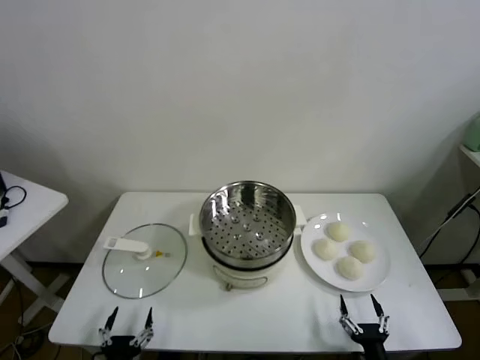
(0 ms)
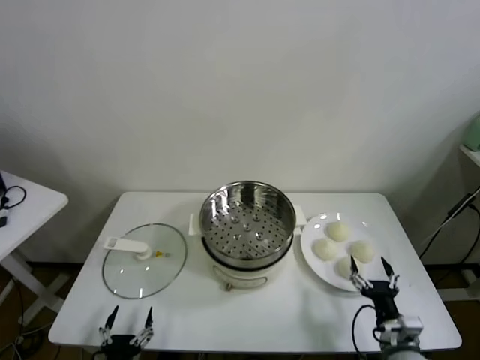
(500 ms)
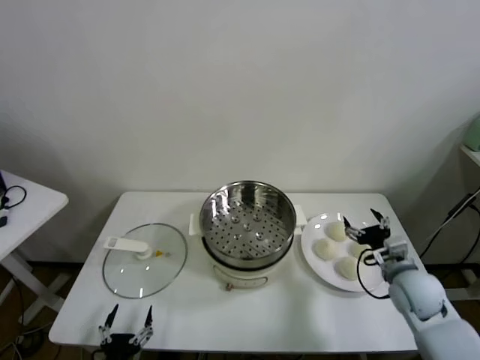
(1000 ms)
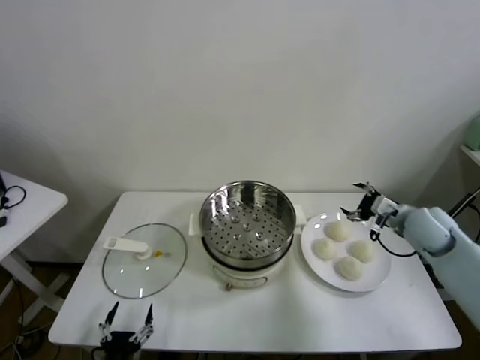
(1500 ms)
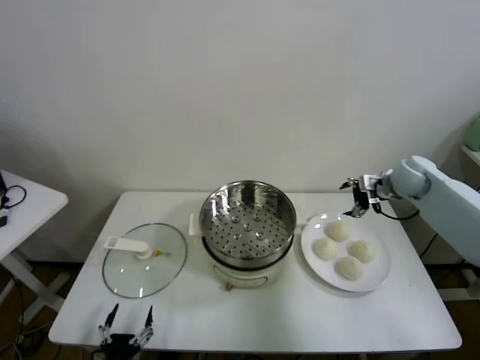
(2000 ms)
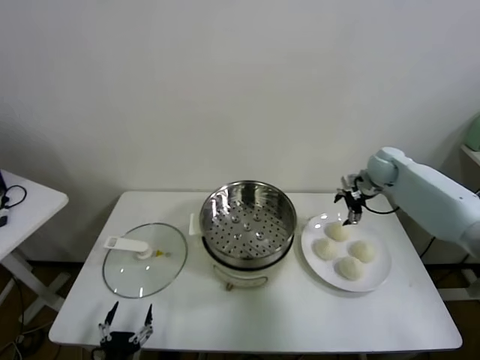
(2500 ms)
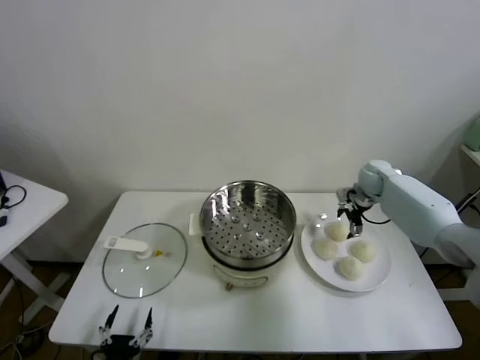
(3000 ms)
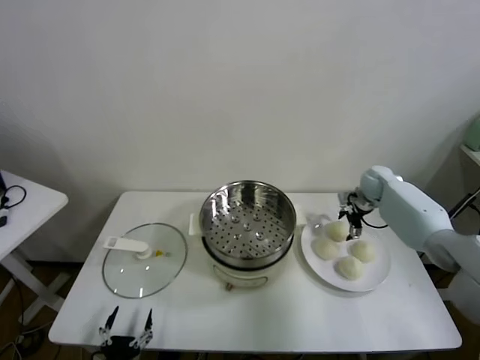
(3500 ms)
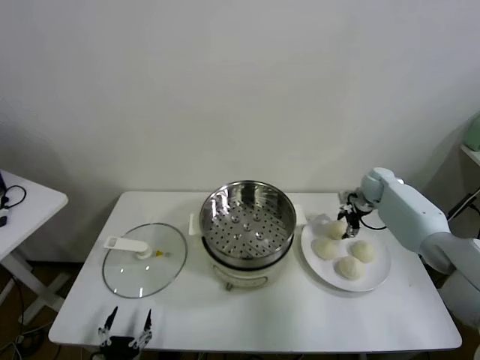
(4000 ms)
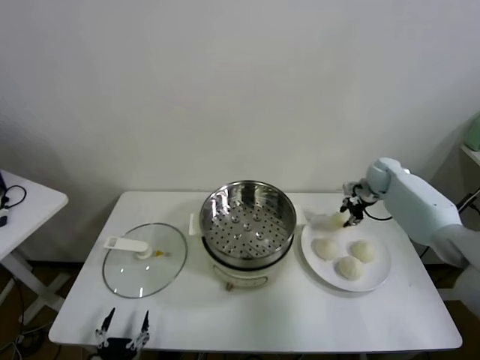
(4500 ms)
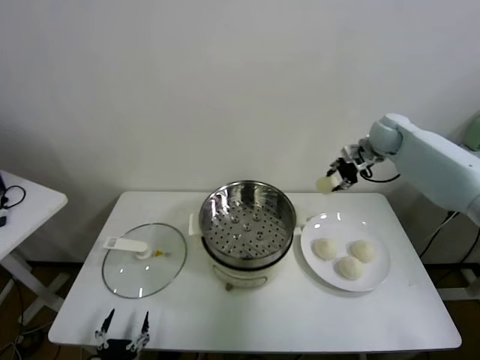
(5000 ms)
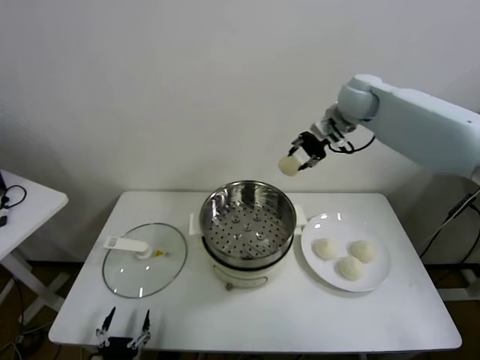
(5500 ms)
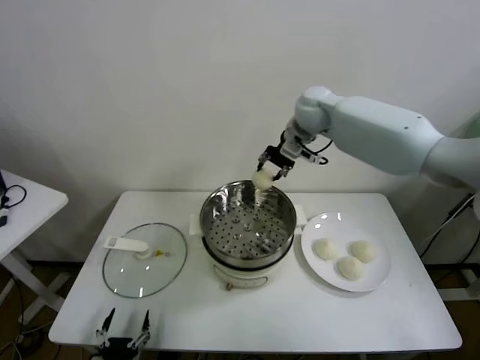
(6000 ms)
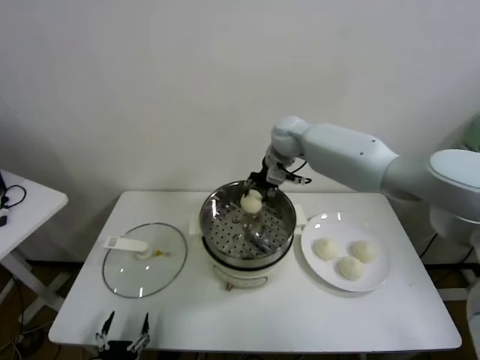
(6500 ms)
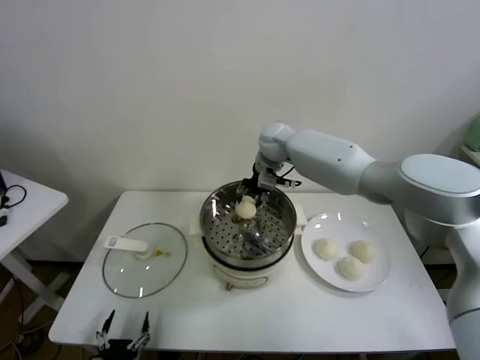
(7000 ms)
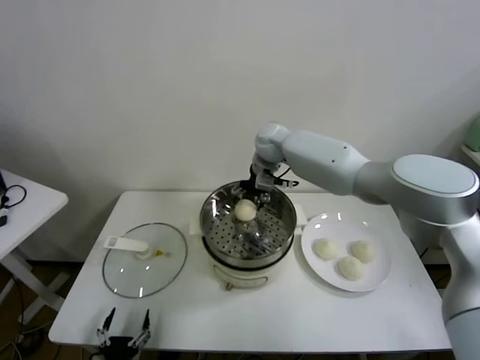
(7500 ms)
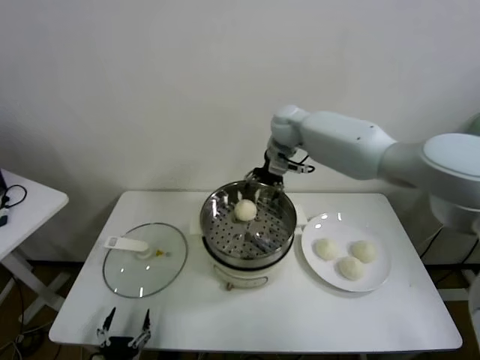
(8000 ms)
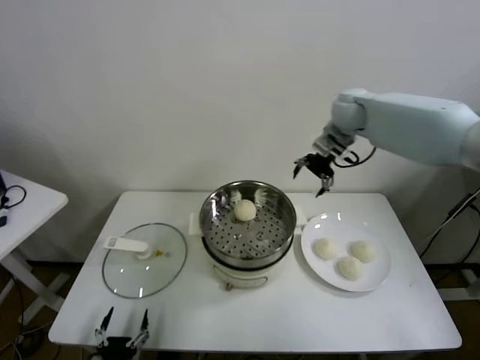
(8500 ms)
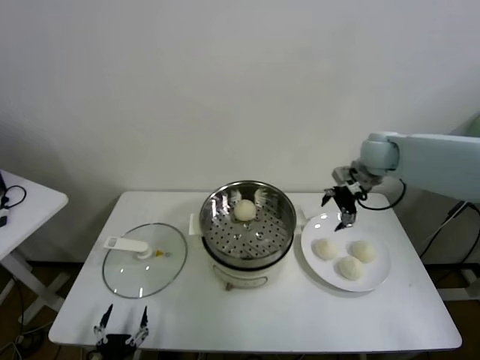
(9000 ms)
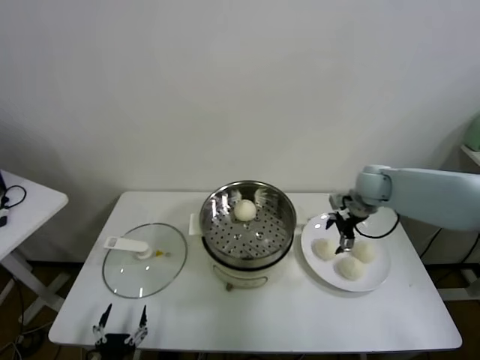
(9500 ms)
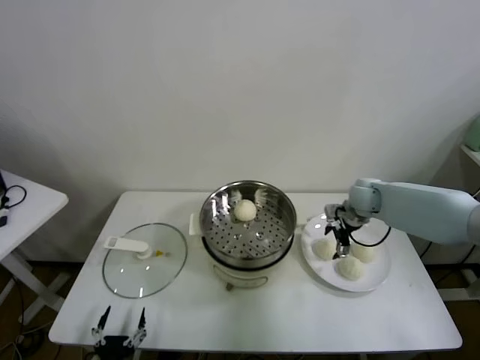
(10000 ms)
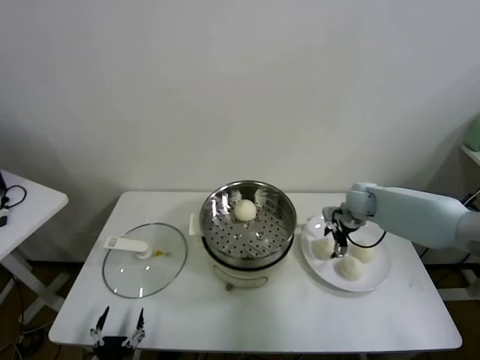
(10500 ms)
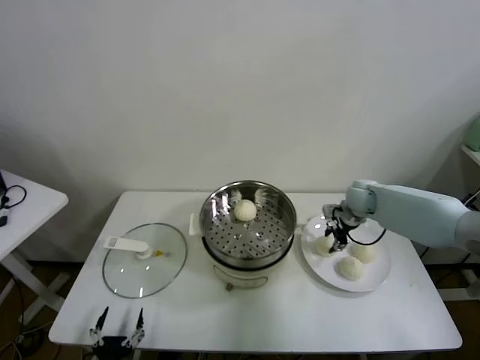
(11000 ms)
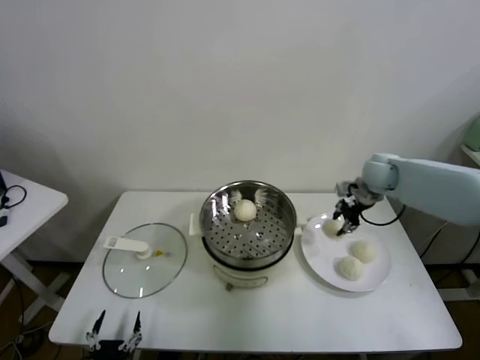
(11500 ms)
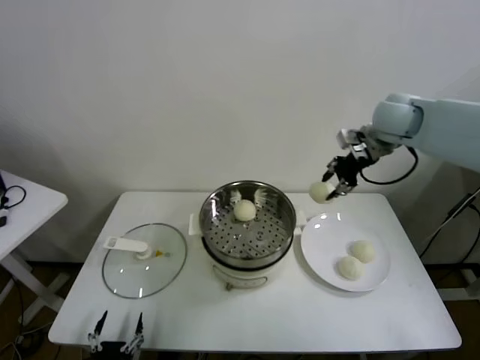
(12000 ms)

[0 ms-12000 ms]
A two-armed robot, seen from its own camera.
Task of the whole recording: take steamed baozi put them in steamer.
Step, 0 ms to 4000 ms: Grasp the baozi in the plate with right gripper.
Step, 4500 ms to 7500 ms: Place the baozi on the steamer with right gripper.
Step, 8000 ms to 10500 ms: Grasp the baozi in the plate with right gripper.
2000 ms to 4000 ms: The right gripper goes roughly 10 cm downward and forward, and closes.
4000 ms to 6000 ms: The right gripper heads to the left and upward, covering some 35 cm.
6000 ms to 8000 ms: The right gripper goes downward and returns, approximately 10 cm each way, and opens its fingers.
8000 ms to 10000 ms: The right gripper travels to the right, downward and backward by some 30 cm.
10000 ms to 12000 ms: The right gripper goes about 25 cm upward, and closes up.

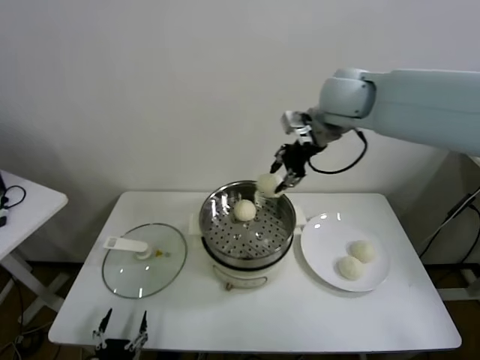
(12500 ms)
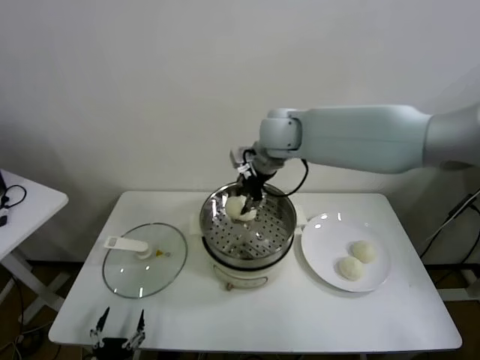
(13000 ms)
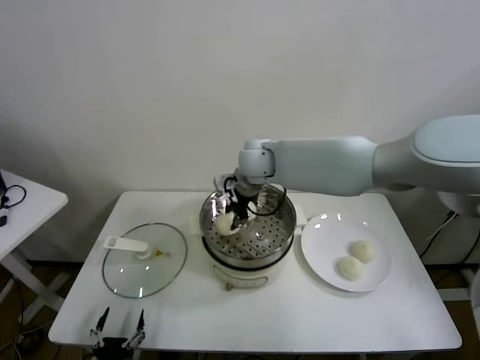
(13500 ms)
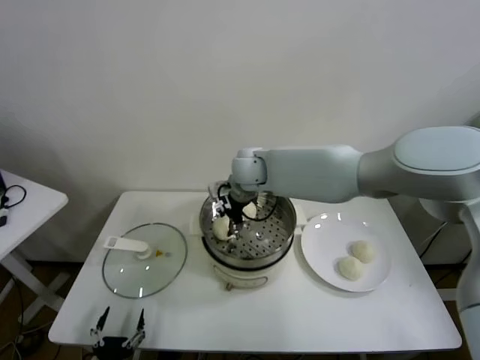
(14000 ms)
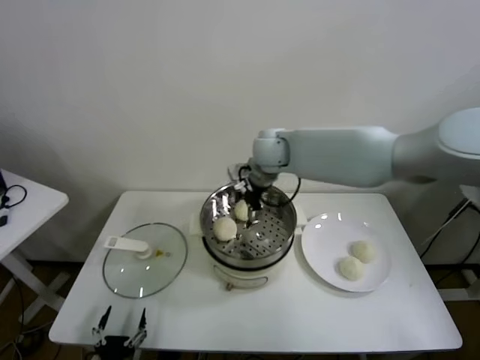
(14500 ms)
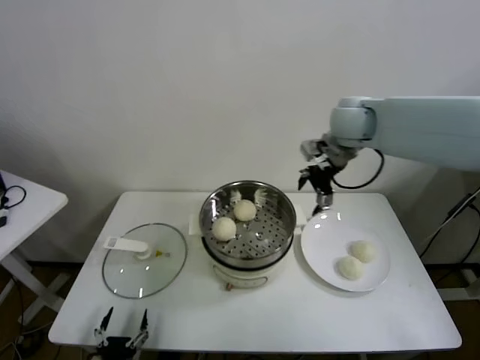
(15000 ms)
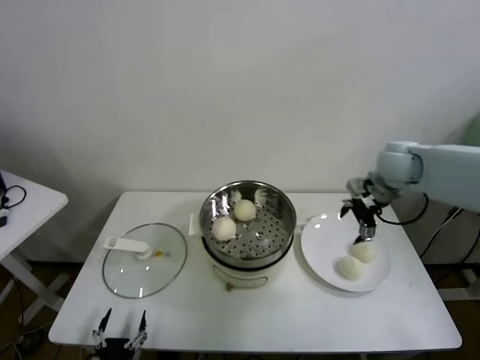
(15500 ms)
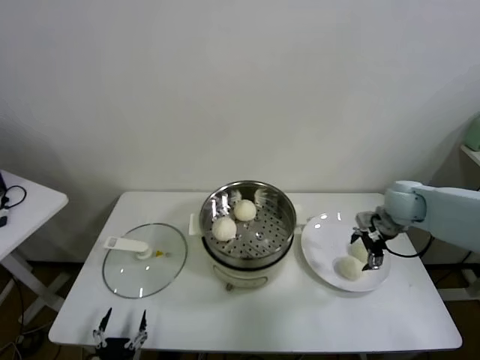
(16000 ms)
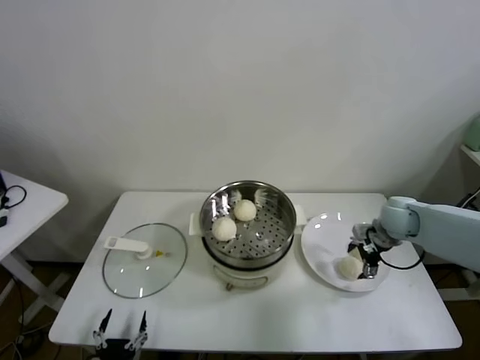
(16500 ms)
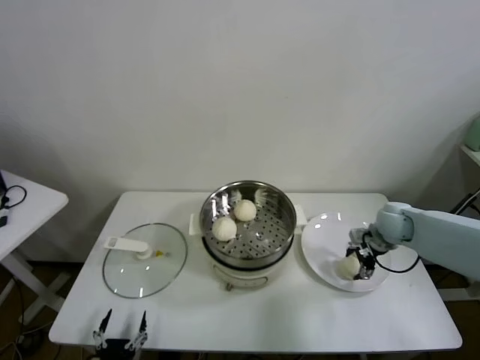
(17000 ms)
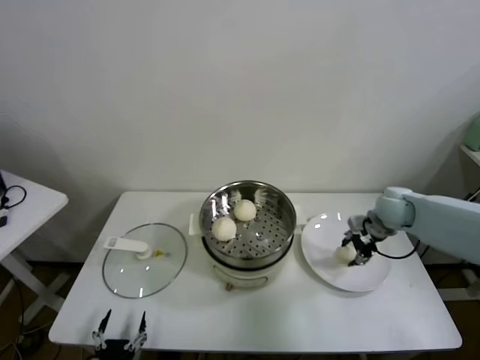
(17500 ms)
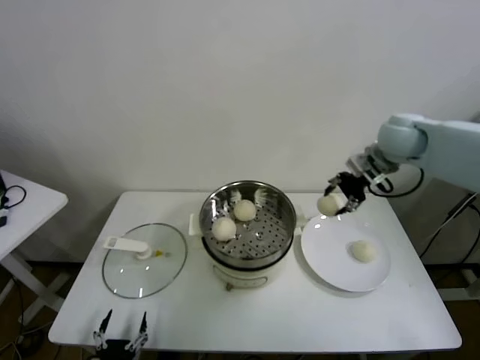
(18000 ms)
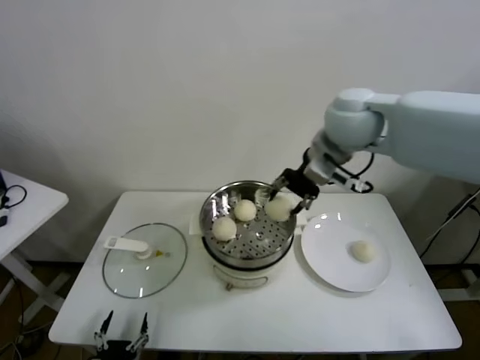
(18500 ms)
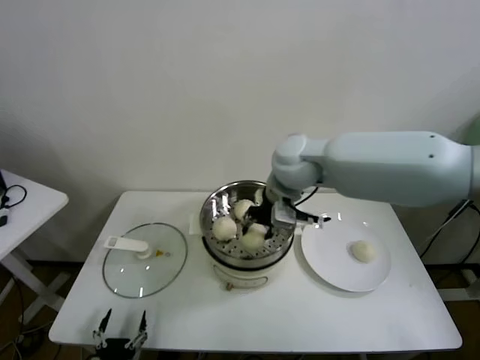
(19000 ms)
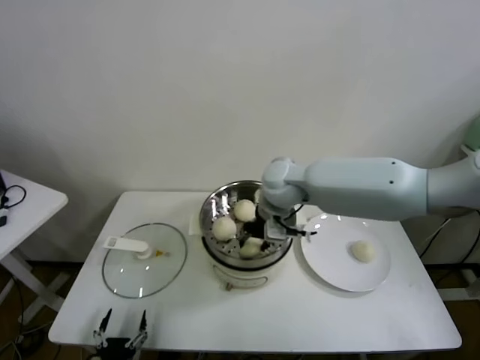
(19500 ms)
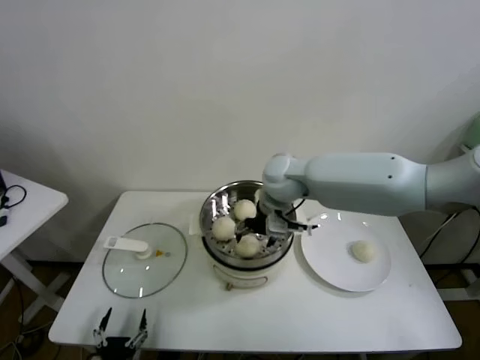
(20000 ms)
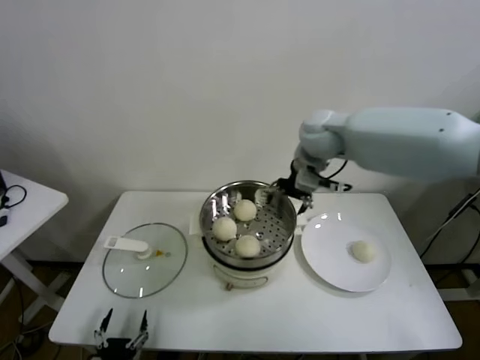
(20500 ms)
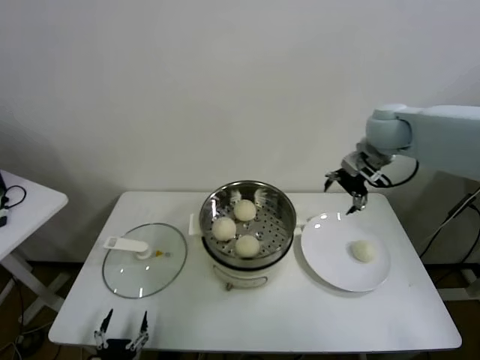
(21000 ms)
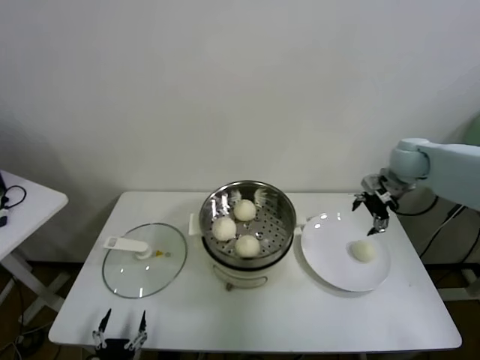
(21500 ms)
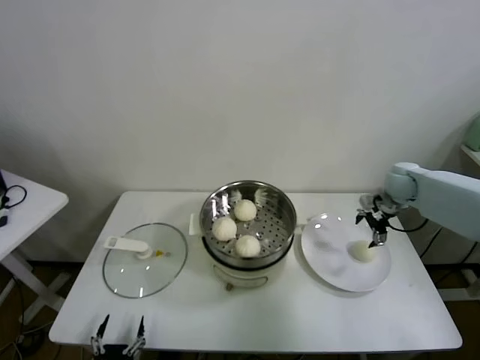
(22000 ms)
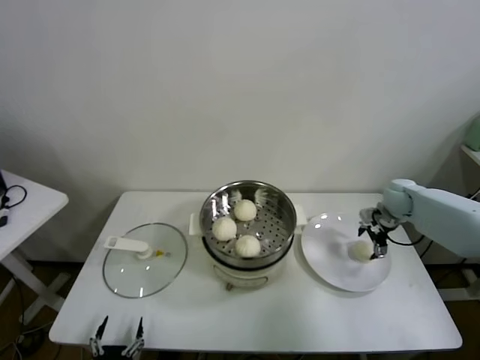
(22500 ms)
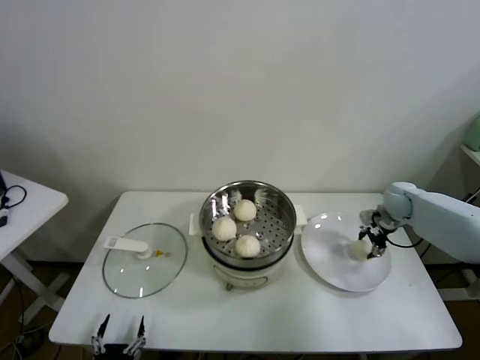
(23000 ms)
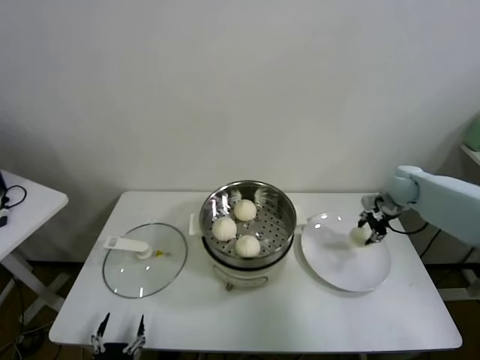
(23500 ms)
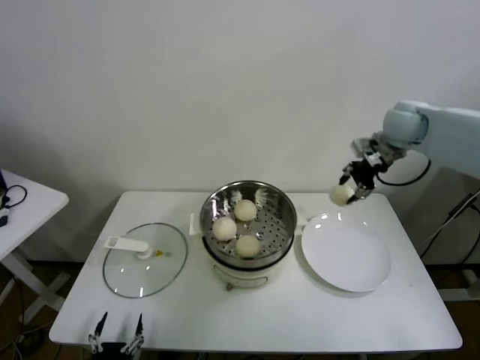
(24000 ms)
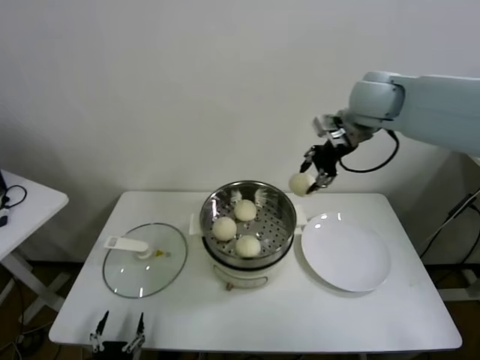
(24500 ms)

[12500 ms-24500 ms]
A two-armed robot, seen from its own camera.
Task of the whole recording: take steamed baozi put them in steamer.
Step, 14500 ms to 17000 ms: Grasp the baozi in the plate with right gripper.
Step, 17500 ms to 19500 ms: Place the baozi on the steamer with right gripper.
Step, 20000 ms to 23000 ms: Grasp the baozi in the plate with right gripper.
12500 ms to 14500 ms: The right gripper travels downward and to the left by some 15 cm, and opens up.
14500 ms to 16500 ms: The right gripper moves to the right and downward, some 35 cm.
16500 ms to 18500 ms: The right gripper shifts roughly 35 cm upward and to the left, and closes its fingers.
18500 ms to 20500 ms: The right gripper heads downward and forward, covering some 10 cm, and opens up.
20500 ms to 22500 ms: The right gripper travels to the right and downward by roughly 35 cm.
22500 ms to 24500 ms: The right gripper travels upward and to the left by approximately 35 cm, and closes its fingers.

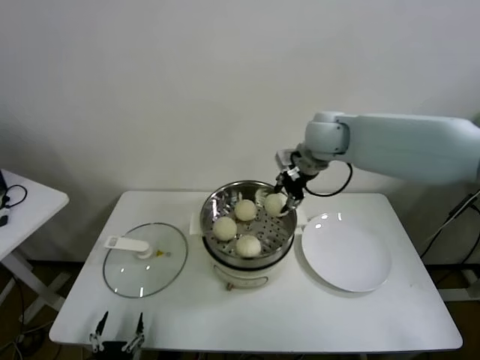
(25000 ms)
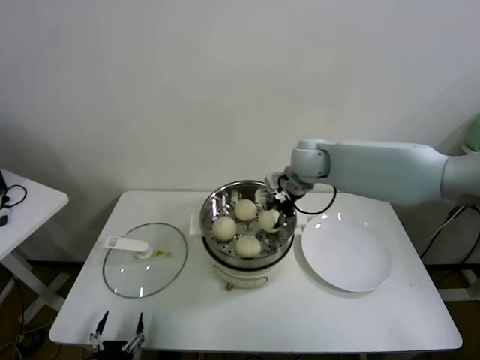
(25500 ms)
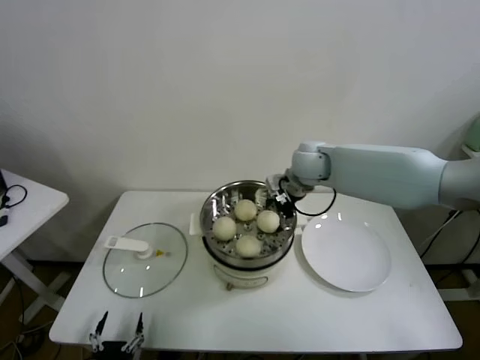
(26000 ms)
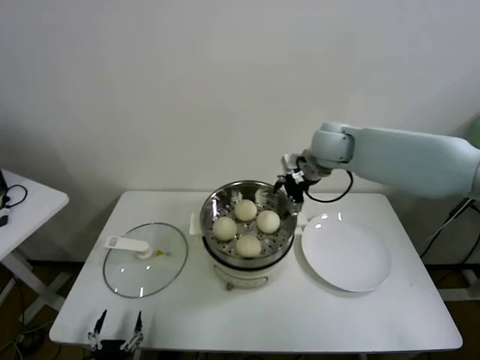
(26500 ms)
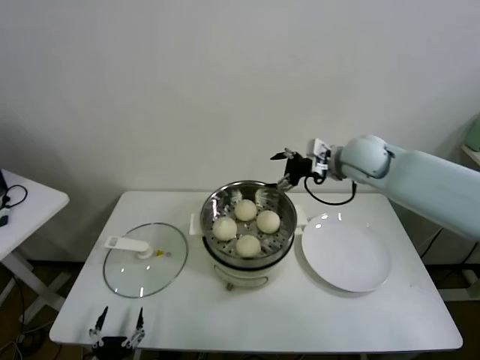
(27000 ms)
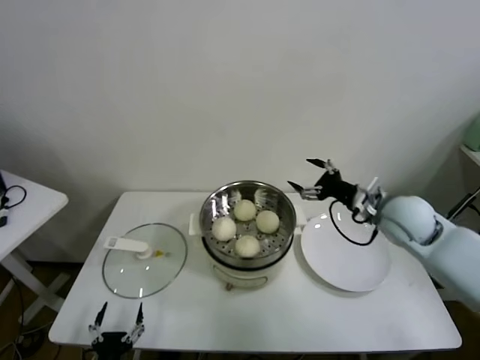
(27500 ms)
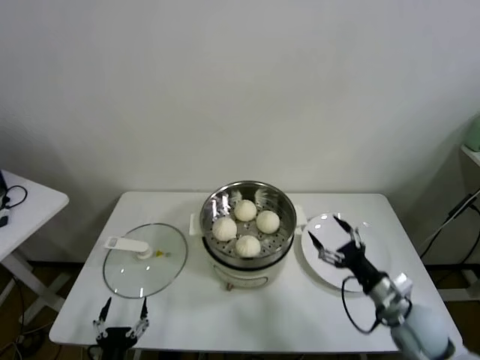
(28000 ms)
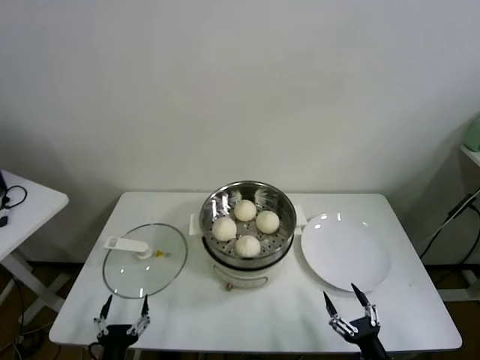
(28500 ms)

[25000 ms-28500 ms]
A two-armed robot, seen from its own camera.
Task of the whole recording: take steamed baozi put them in steamer.
25000 ms to 27000 ms: The right gripper shifts roughly 5 cm to the right, and opens up.
27000 ms to 28500 ms: The right gripper shifts about 50 cm backward and downward.
